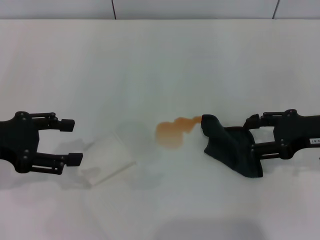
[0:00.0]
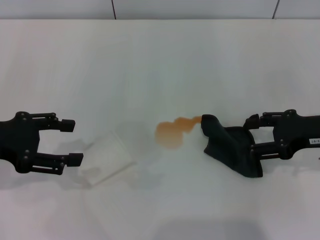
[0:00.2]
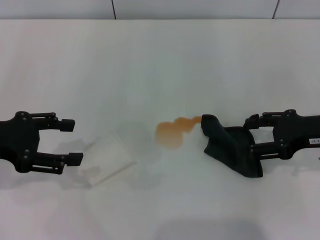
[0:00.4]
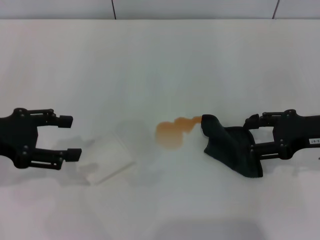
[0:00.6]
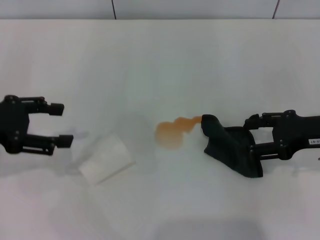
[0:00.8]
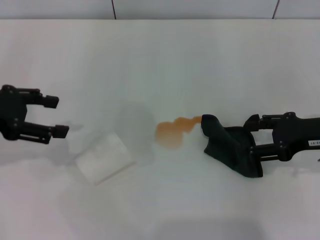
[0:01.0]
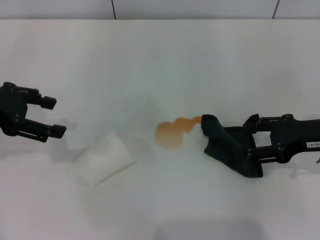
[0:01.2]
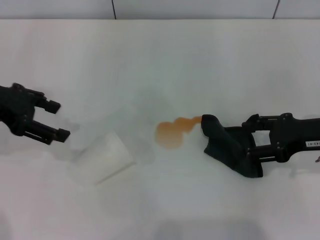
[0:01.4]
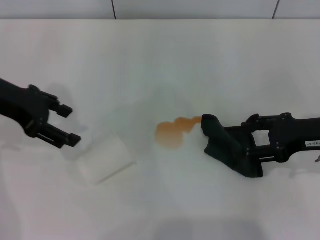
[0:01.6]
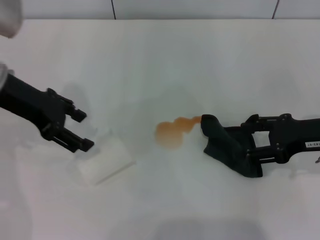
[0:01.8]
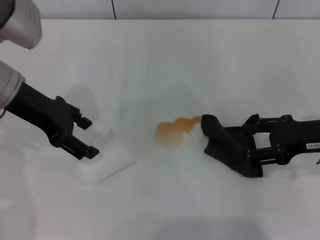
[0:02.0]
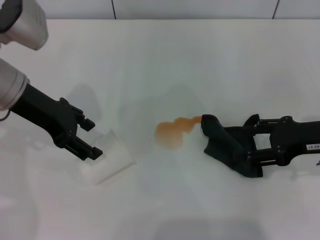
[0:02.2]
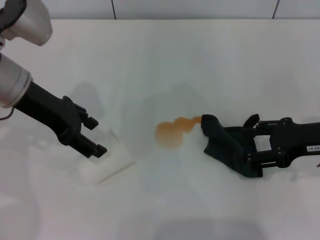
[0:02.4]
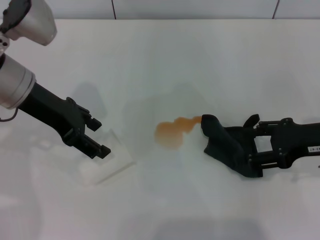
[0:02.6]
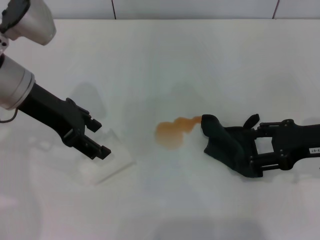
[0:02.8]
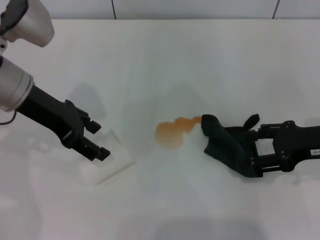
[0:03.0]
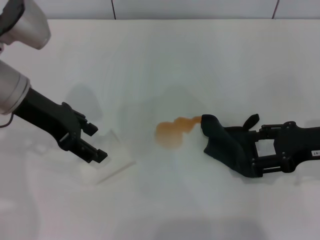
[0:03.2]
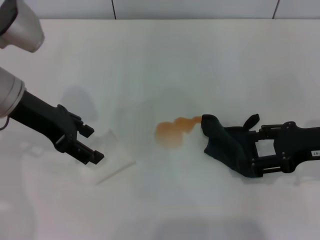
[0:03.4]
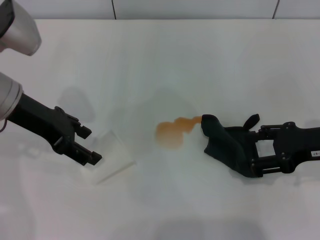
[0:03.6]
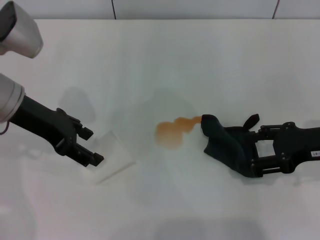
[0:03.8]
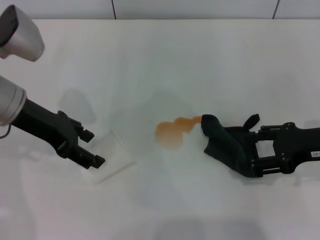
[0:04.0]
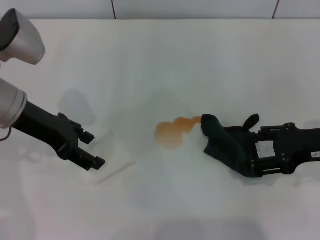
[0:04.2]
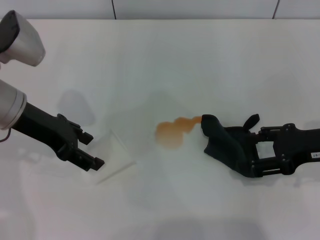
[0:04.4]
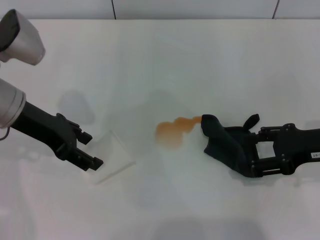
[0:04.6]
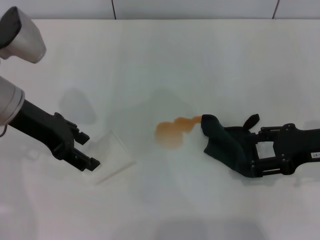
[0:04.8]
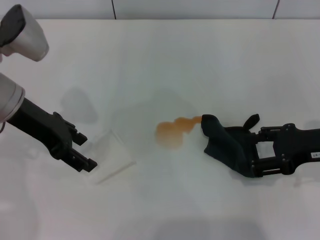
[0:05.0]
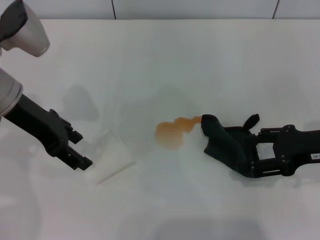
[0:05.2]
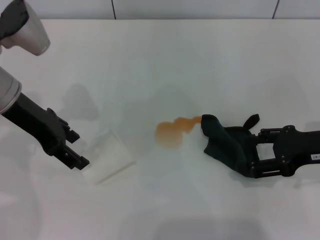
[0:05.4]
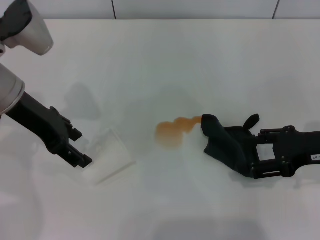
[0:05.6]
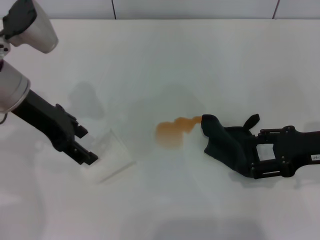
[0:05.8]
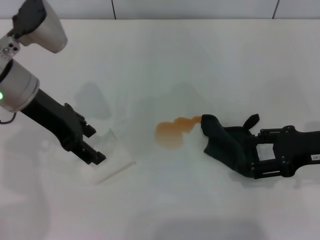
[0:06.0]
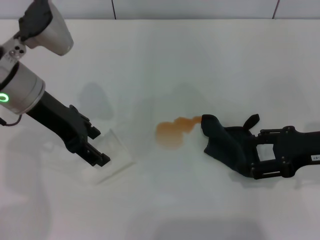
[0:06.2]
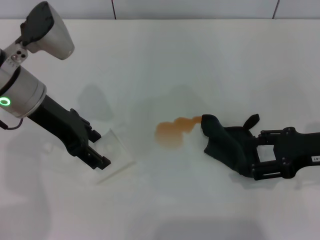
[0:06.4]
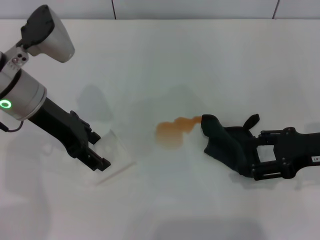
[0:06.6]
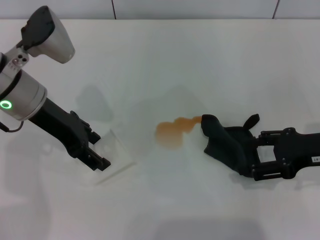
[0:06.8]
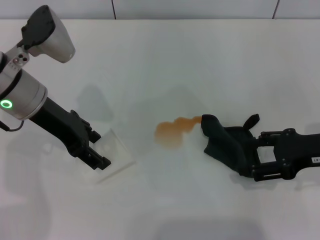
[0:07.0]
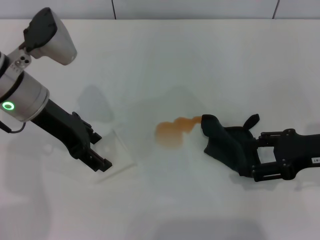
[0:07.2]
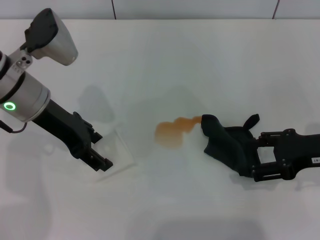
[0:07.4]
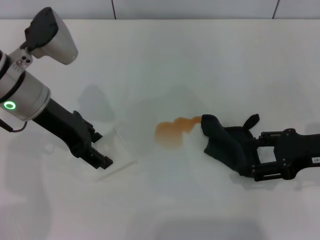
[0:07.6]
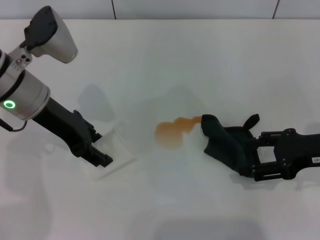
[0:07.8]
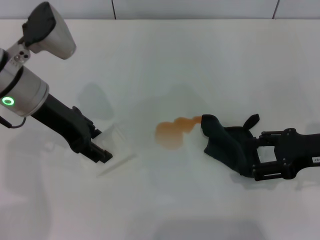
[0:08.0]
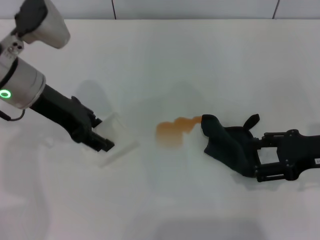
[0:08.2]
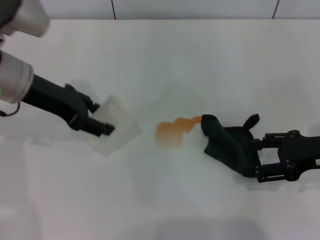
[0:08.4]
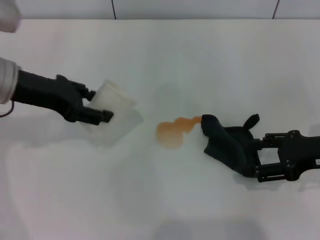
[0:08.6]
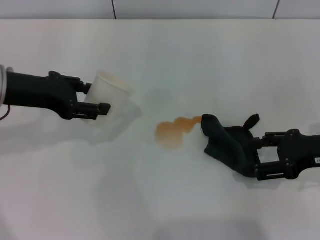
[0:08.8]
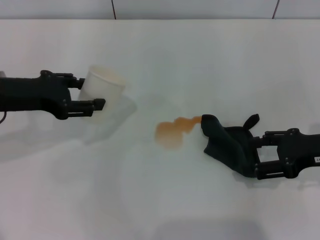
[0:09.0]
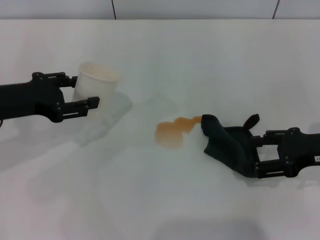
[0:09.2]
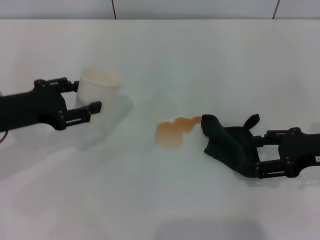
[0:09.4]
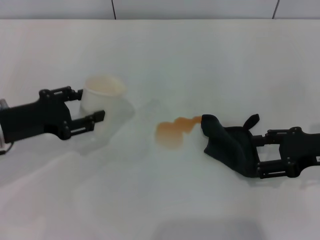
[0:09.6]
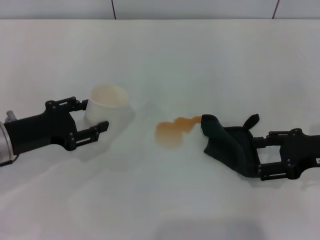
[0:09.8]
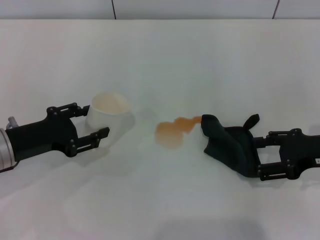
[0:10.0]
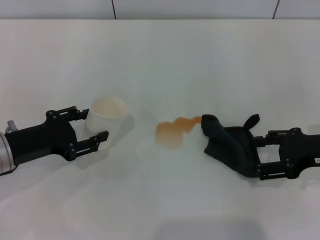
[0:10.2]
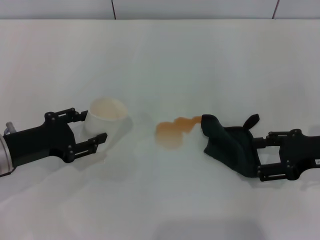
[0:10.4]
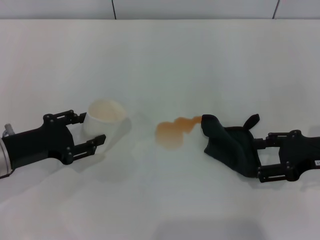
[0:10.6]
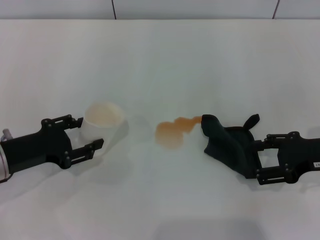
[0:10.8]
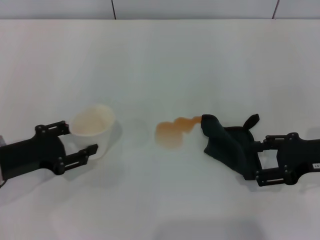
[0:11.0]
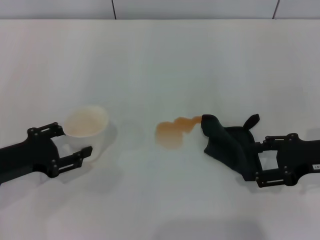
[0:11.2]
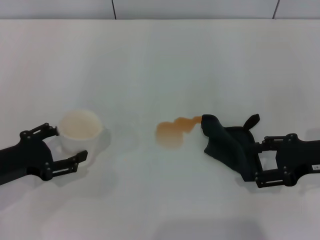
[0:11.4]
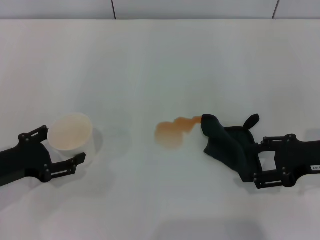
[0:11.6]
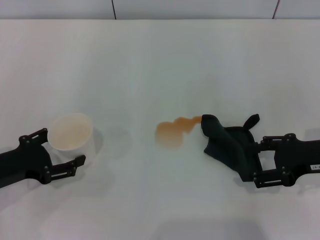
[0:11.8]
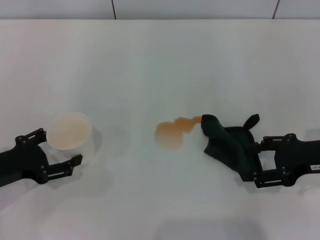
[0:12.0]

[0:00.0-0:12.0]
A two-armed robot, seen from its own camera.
Step, 0:00.0 to 0:07.6: Grasp the paper cup with the left gripper.
0:00.0 to 0:01.6: The left gripper travels forward by roughly 10 cm.
0:01.6 to 0:03.0: The left gripper shifts some 5 cm to the right.
0:03.0 to 0:07.6: The grippers make only small movements.
0:07.6 to 0:09.0: The left gripper is displaced to the left by about 5 cm, and closes.
0:09.0 to 0:10.4: The left gripper moves downward and backward, some 10 cm.
0:10.4 to 0:12.0: The left gripper moves roughly 5 cm, and opens.

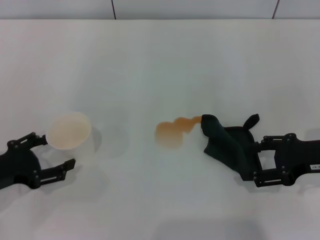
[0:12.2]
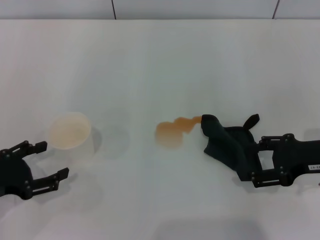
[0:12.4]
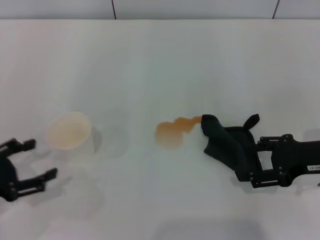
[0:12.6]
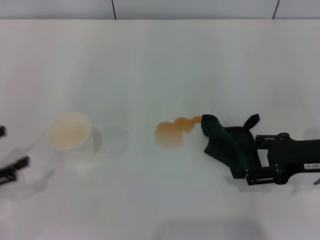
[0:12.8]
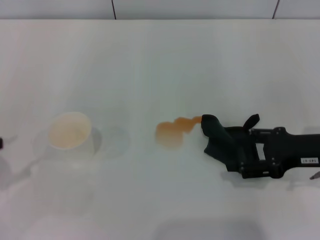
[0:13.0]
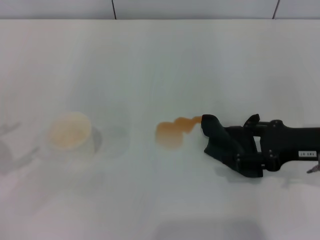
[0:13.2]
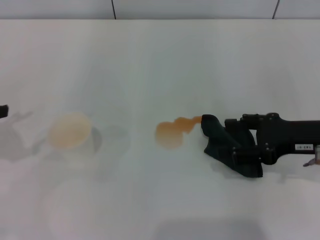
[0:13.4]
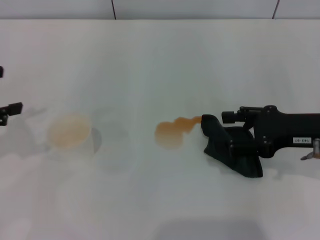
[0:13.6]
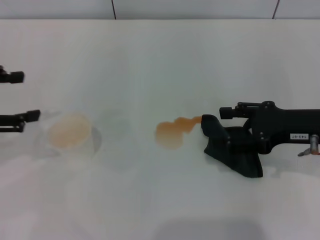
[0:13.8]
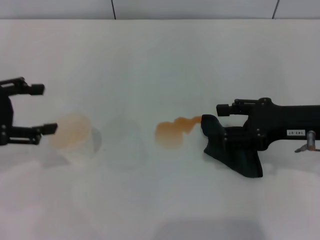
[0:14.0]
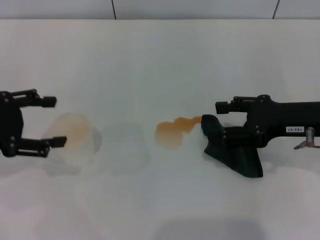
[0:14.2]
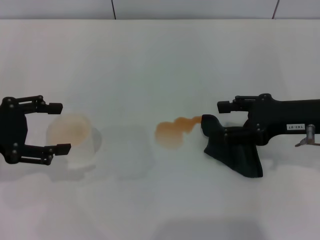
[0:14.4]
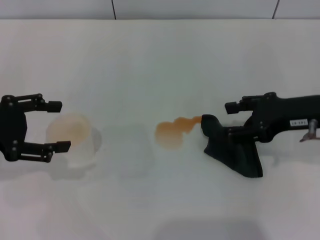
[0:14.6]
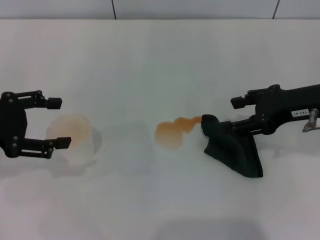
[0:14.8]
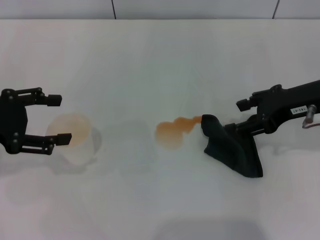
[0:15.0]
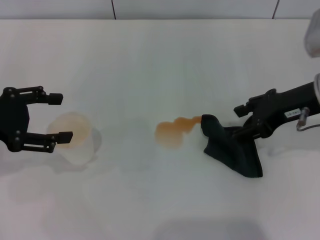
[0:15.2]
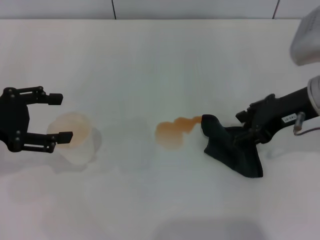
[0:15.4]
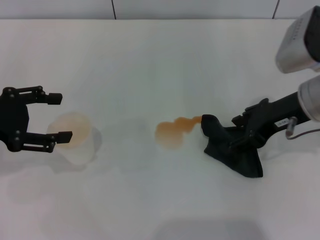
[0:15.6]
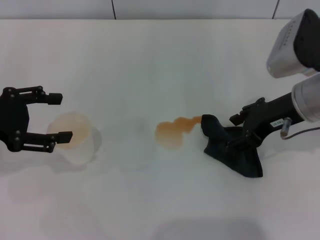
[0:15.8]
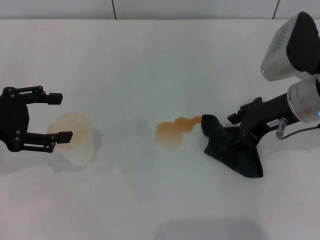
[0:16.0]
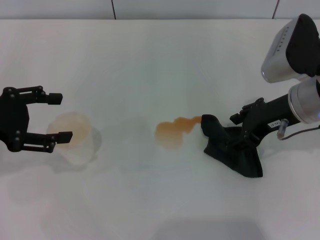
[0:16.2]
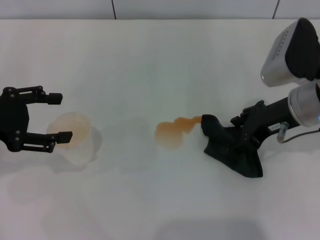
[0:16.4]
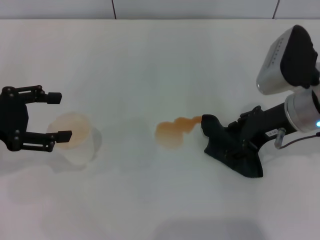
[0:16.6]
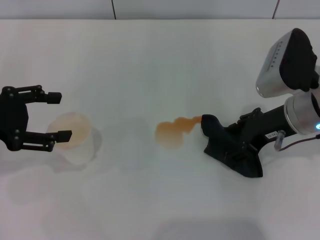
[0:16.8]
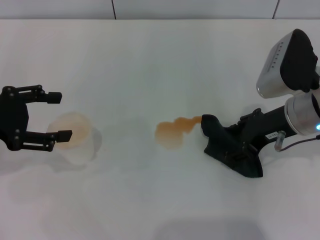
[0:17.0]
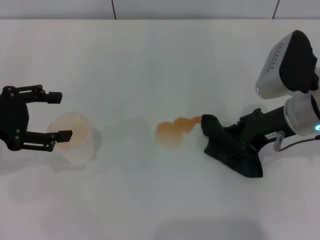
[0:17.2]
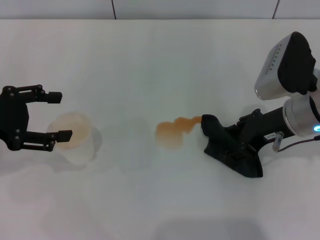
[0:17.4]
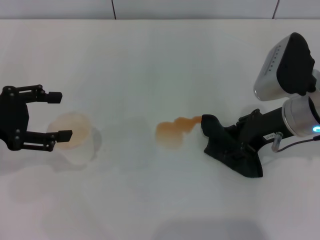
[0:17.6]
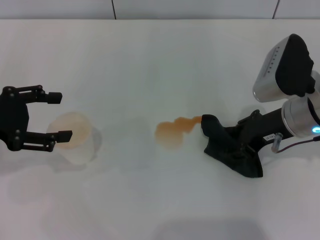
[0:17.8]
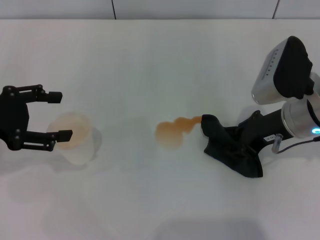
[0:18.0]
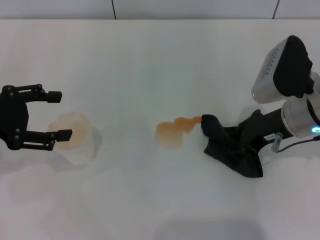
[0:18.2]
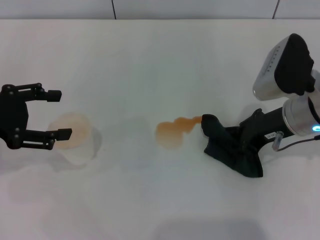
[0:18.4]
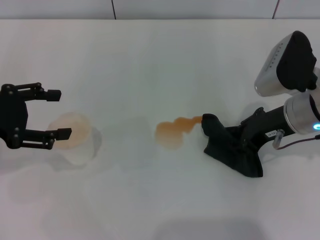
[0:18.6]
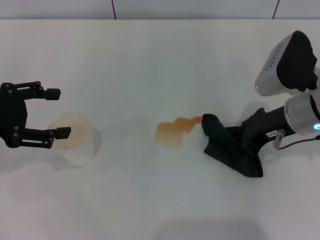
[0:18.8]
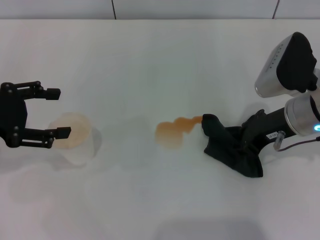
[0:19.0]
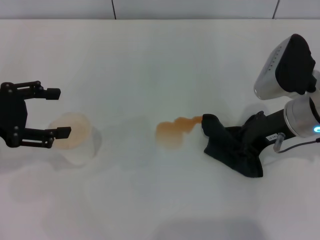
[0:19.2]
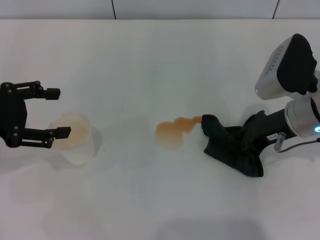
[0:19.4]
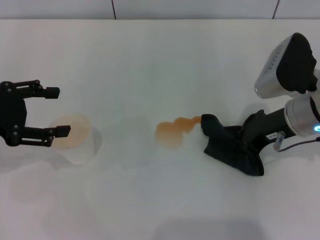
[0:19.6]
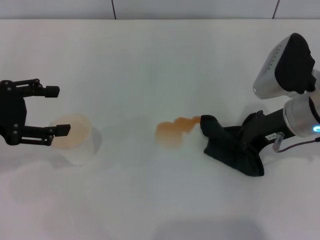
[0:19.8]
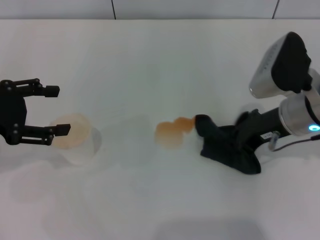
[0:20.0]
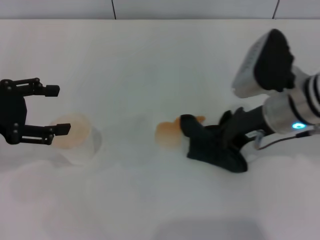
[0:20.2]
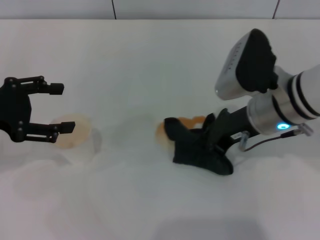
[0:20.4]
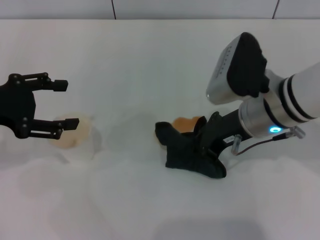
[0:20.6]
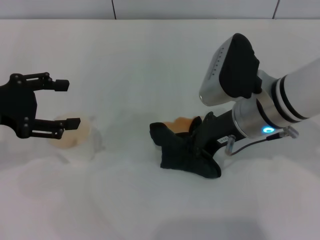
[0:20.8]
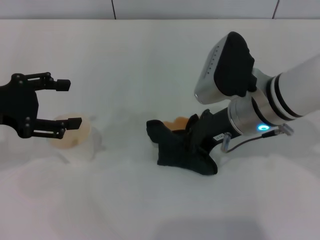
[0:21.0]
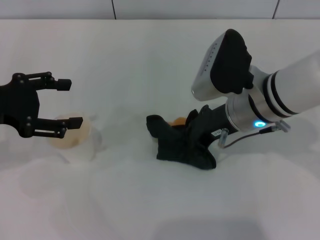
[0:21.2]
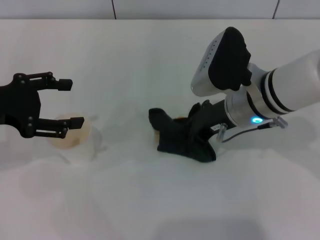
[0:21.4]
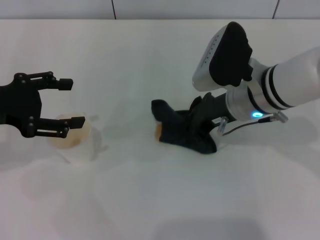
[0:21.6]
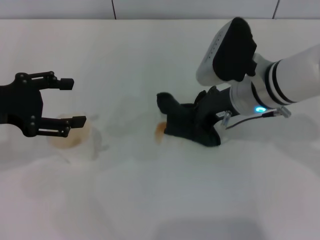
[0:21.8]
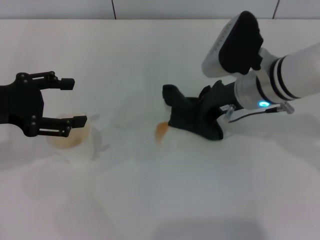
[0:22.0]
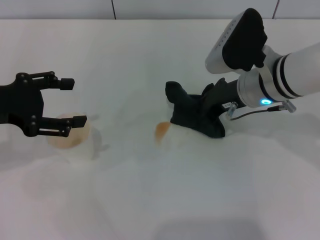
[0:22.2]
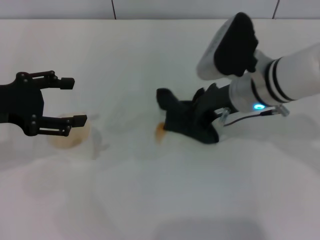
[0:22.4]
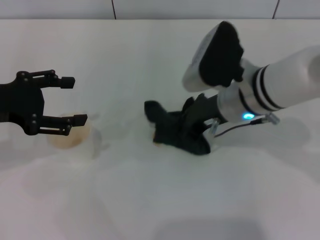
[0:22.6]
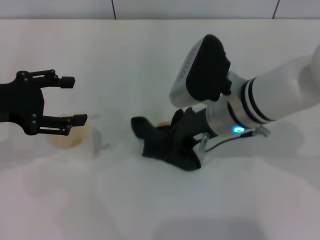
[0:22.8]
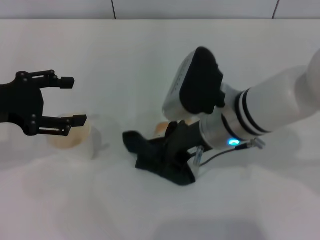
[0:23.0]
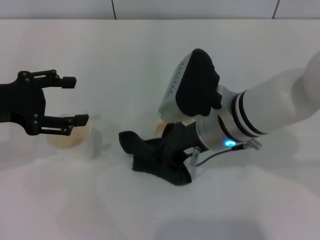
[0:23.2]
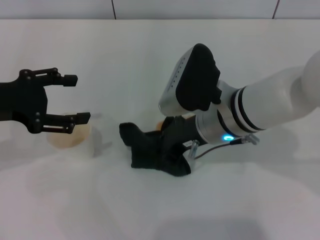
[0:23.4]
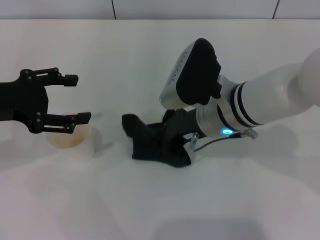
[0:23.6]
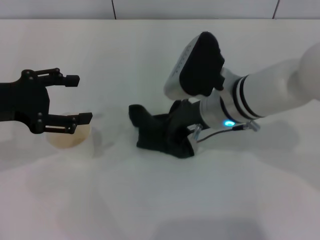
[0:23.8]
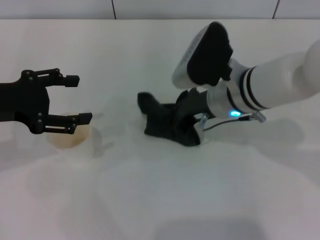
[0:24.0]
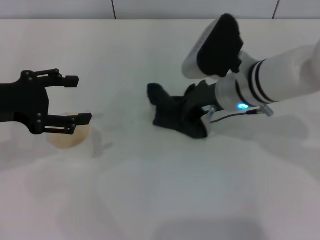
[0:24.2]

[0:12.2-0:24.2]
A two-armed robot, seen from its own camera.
Step, 0:12.6 to 0:19.6: Grasp the rag with the right gripper.
0:12.2 to 0:13.8: The left gripper shifts some 15 cm upward and forward.
0:13.8 to 0:15.2: The right gripper ends up about 5 cm from where it was.
0:15.2 to 0:16.6: There are only small adjustments of the grippers.
0:16.6 to 0:18.2: The right gripper closes.
0:18.2 to 0:19.8: Neither gripper changes place.
0:19.8 to 0:21.2: The right gripper shifts about 10 cm to the left.
0:21.2 to 0:24.2: There are only small adjustments of the grippers.
